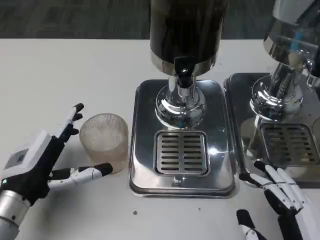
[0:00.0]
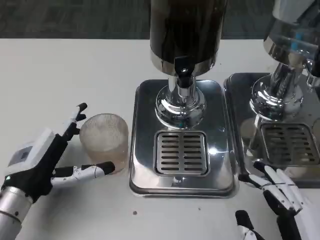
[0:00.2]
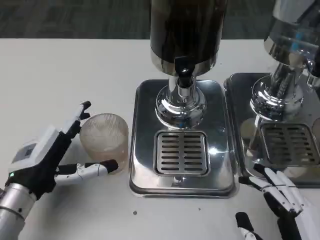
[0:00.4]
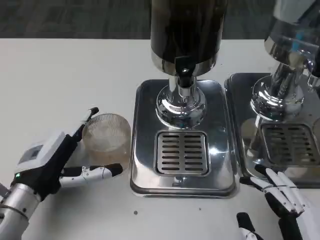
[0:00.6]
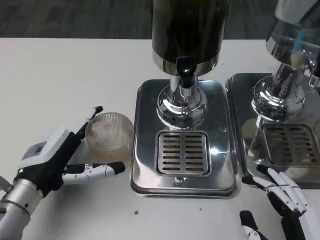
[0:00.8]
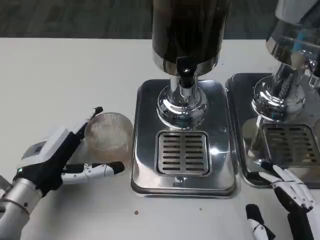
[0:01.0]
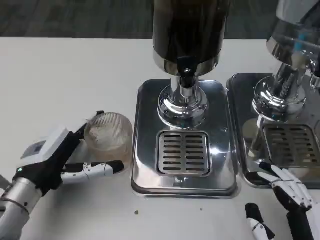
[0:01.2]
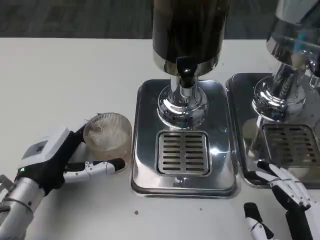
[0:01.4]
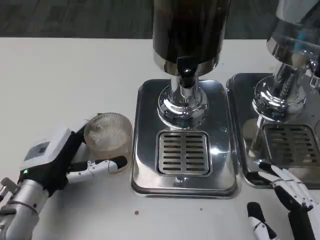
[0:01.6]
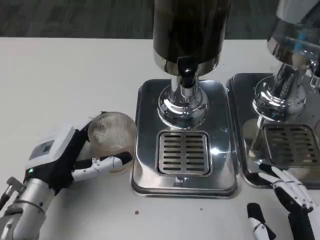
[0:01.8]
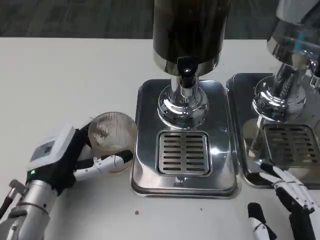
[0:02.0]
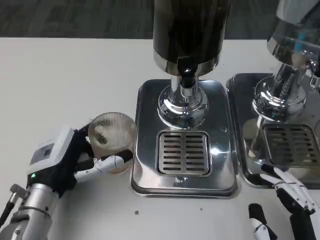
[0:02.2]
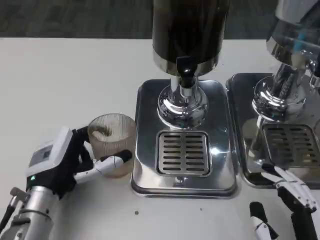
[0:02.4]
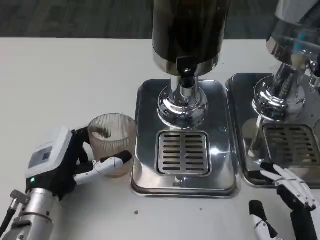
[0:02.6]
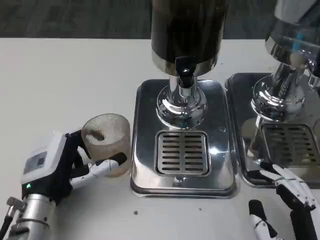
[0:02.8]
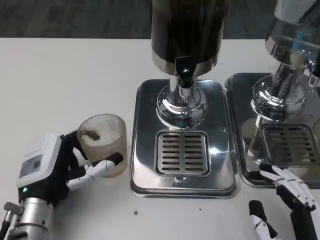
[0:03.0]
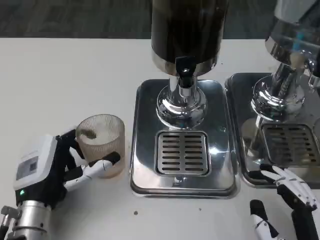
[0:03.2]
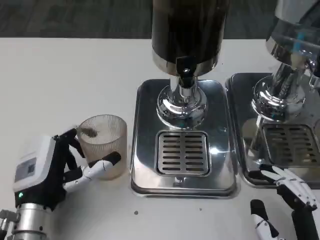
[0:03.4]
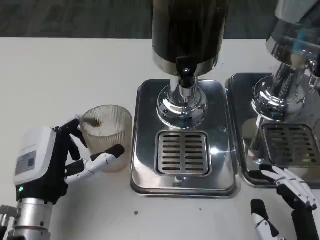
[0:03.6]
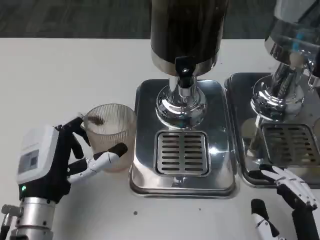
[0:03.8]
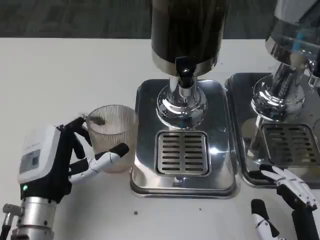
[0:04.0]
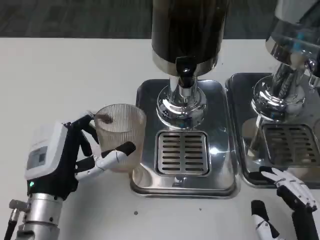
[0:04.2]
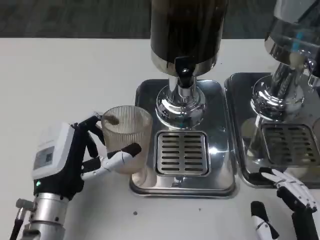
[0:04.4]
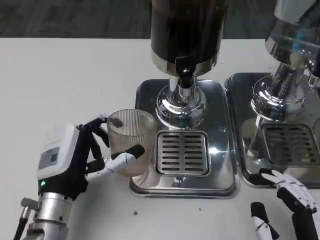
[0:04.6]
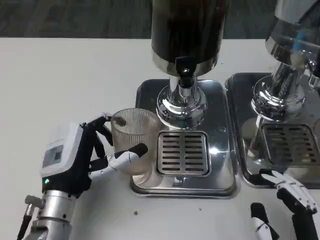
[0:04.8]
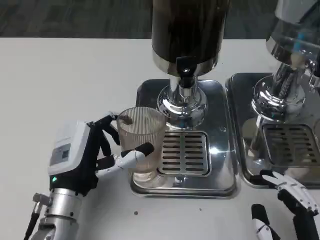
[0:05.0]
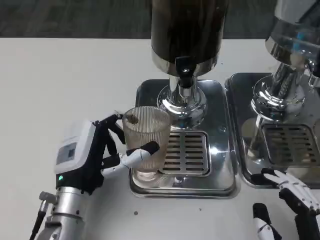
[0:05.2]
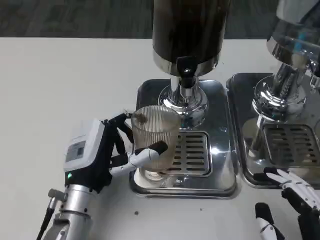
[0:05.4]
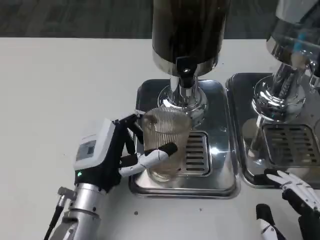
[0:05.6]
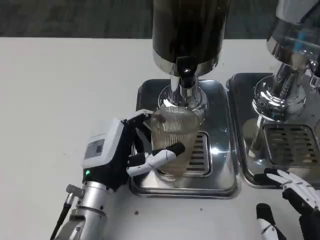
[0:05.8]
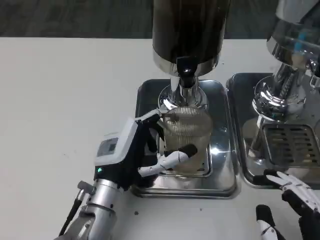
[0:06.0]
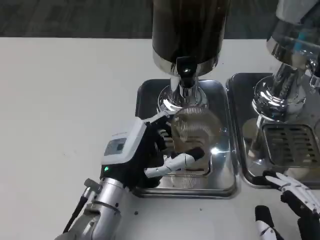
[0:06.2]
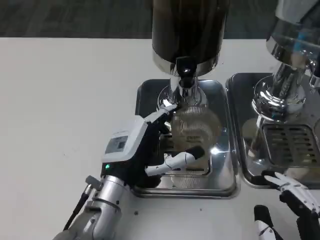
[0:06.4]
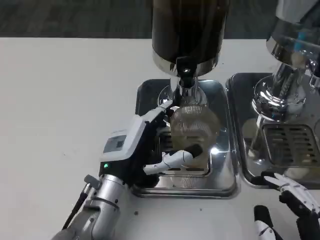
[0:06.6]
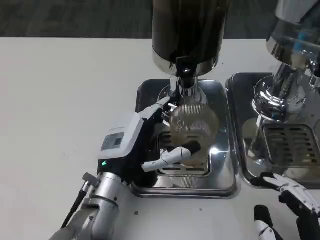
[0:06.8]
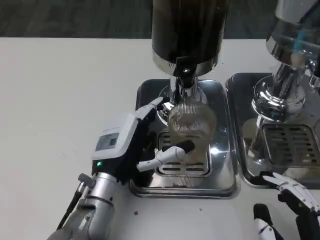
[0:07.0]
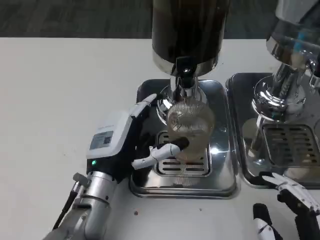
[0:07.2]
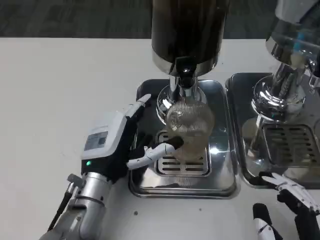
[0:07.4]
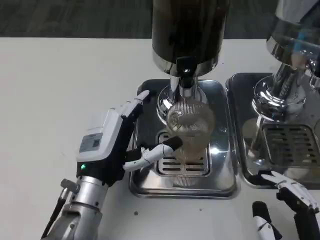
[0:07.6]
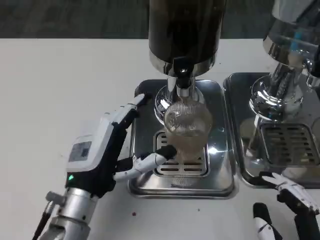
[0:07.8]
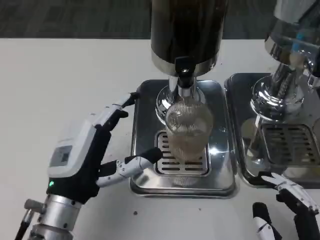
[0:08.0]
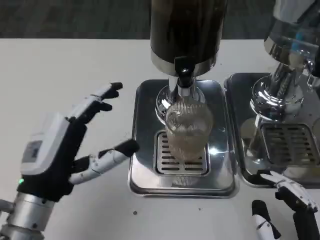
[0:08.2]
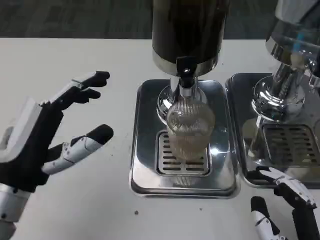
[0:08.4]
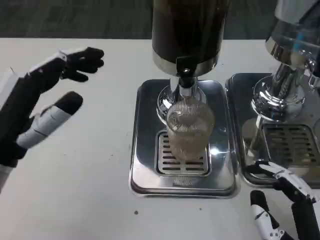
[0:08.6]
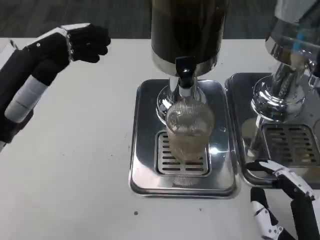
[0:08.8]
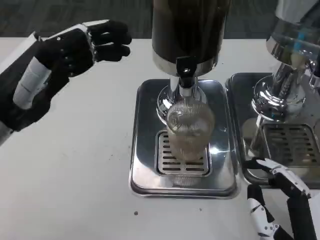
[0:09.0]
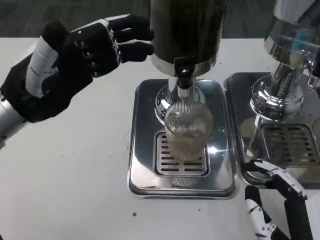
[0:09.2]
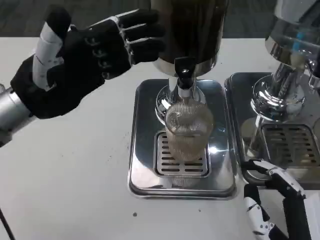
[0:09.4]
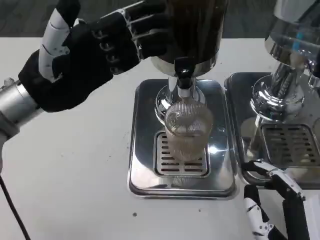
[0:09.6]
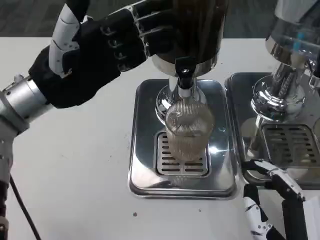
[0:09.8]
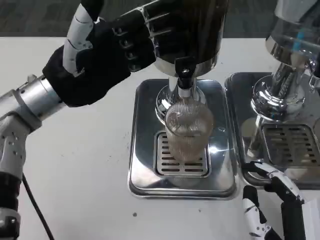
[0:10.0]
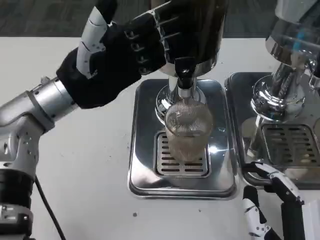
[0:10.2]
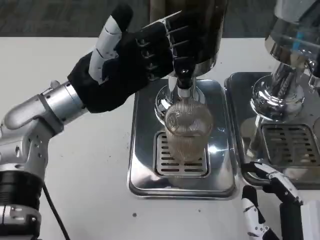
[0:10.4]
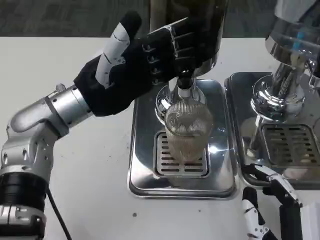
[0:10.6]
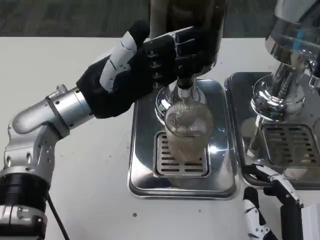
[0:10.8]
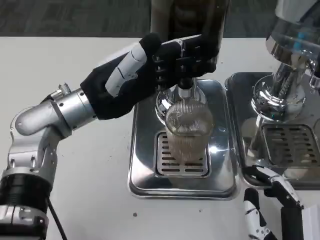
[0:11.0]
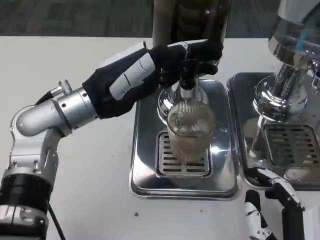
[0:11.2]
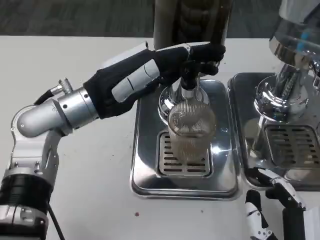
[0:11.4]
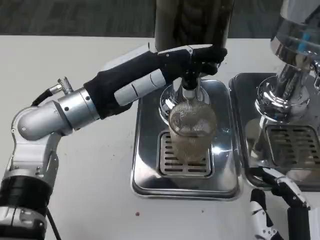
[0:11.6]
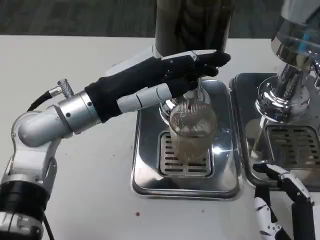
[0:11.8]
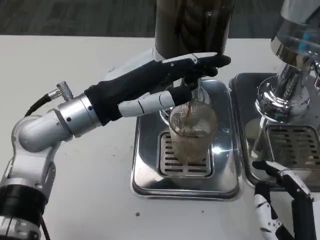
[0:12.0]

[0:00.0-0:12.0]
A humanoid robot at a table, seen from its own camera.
Task of the whole recording: Grasp the cup under the faucet to collect the drink, then remove the cup.
0:01.6 to 0:03.0: The hands make only small movements.
0:03.0 to 0:04.4: There are only small adjustments of the hands.
0:04.4 to 0:06.0: The left hand moves to the right, roughly 5 cm.
0:06.0 to 0:07.6: There are only small adjustments of the hands.
0:07.6 to 0:09.0: The left hand travels upward and to the left by approximately 20 cm.
0:09.0 to 0:10.4: The left hand shifts about 10 cm to the right and forward.

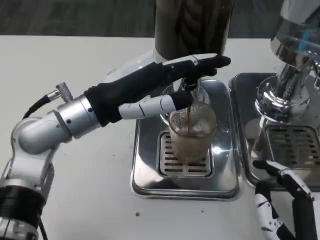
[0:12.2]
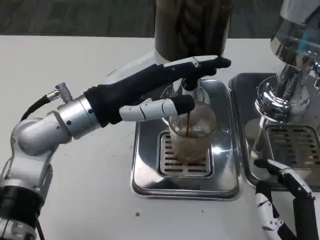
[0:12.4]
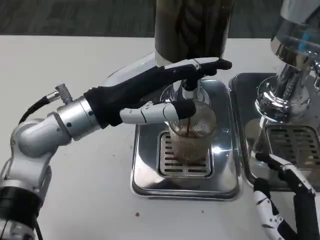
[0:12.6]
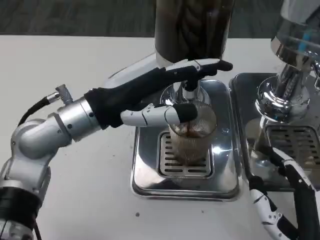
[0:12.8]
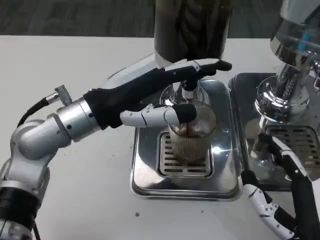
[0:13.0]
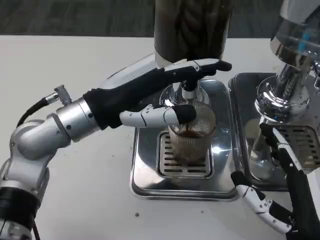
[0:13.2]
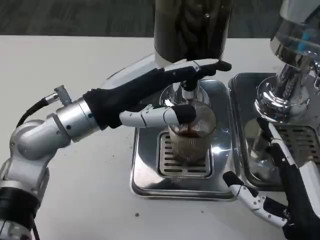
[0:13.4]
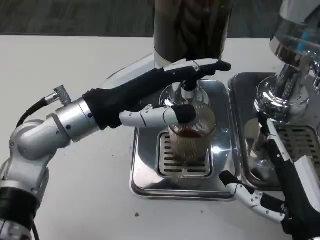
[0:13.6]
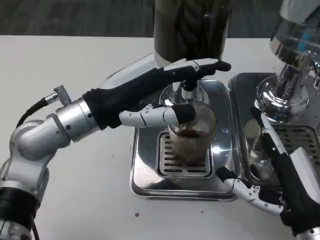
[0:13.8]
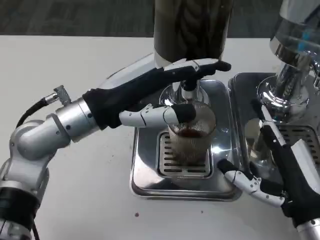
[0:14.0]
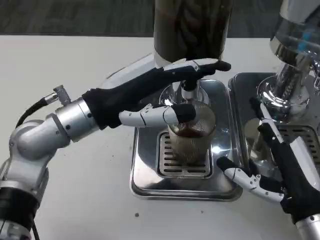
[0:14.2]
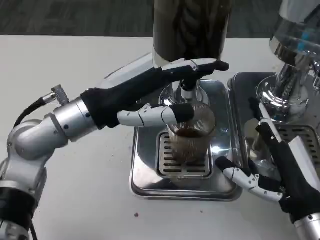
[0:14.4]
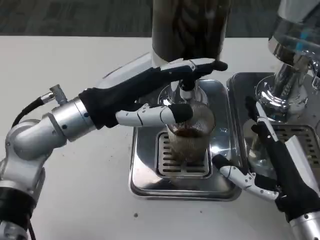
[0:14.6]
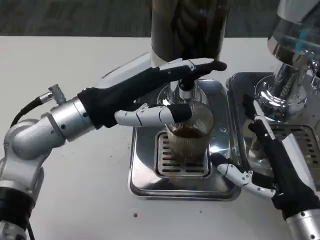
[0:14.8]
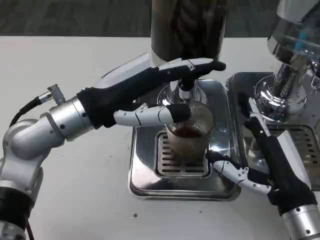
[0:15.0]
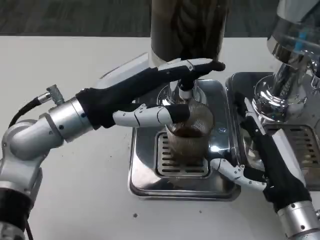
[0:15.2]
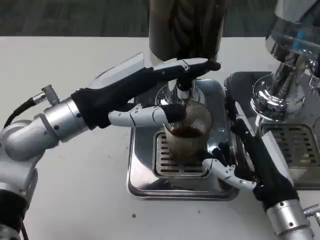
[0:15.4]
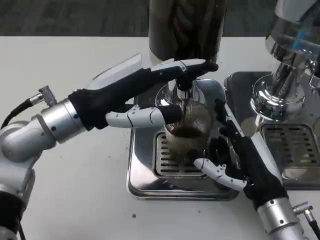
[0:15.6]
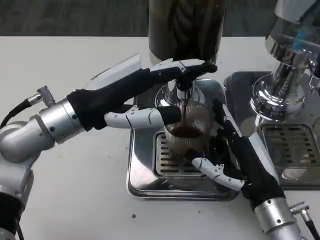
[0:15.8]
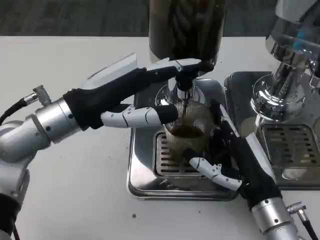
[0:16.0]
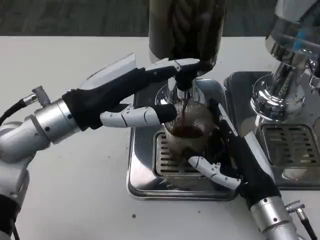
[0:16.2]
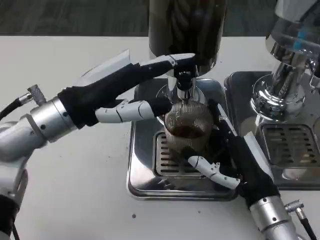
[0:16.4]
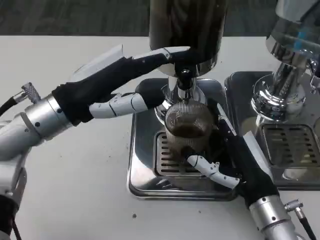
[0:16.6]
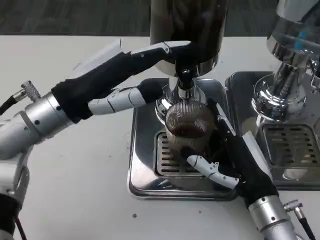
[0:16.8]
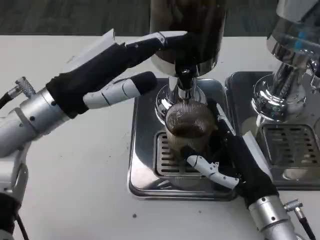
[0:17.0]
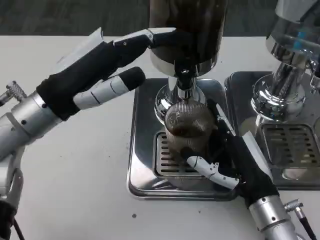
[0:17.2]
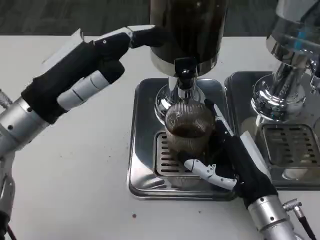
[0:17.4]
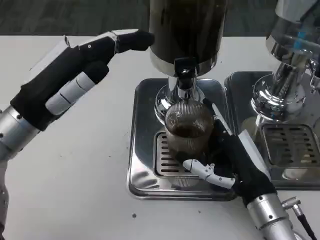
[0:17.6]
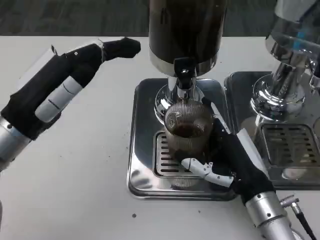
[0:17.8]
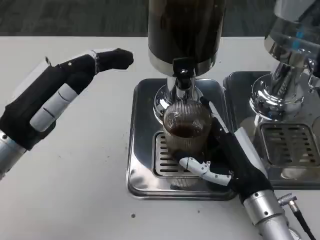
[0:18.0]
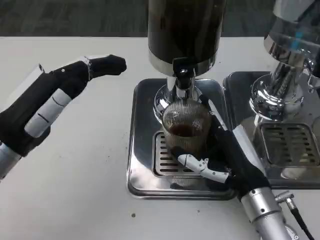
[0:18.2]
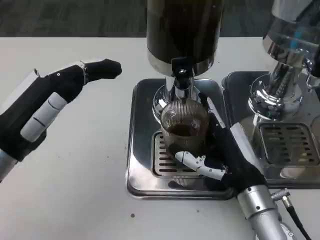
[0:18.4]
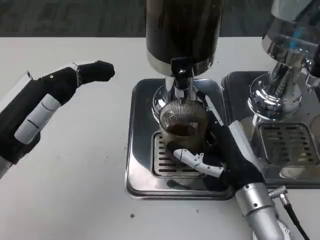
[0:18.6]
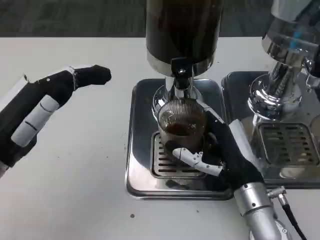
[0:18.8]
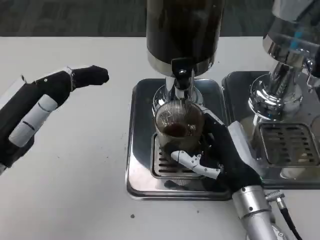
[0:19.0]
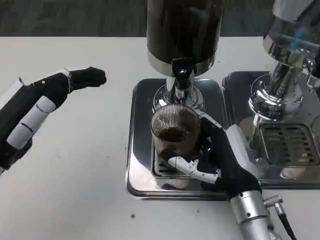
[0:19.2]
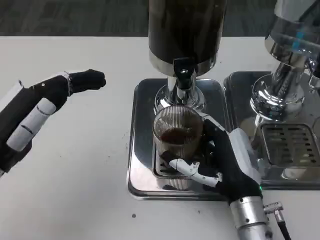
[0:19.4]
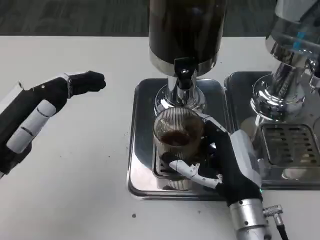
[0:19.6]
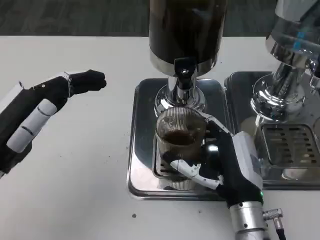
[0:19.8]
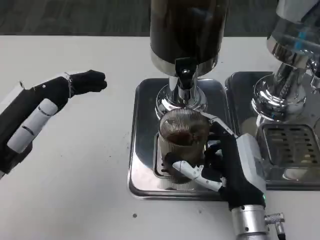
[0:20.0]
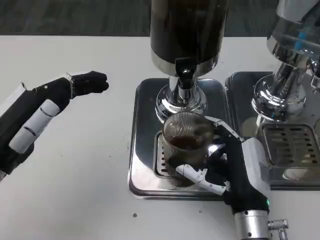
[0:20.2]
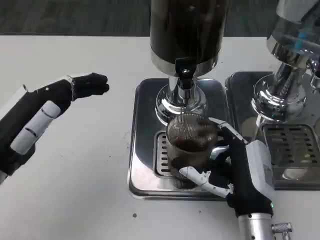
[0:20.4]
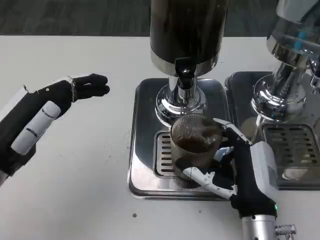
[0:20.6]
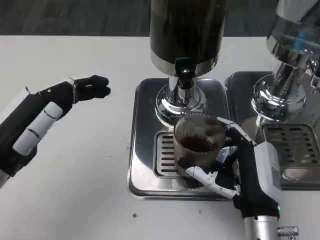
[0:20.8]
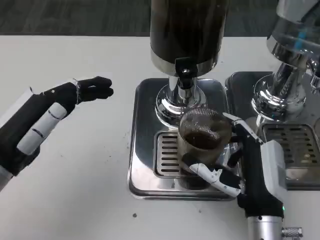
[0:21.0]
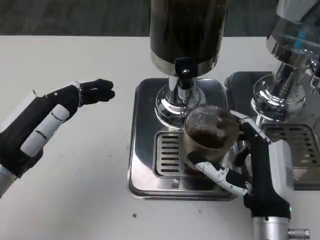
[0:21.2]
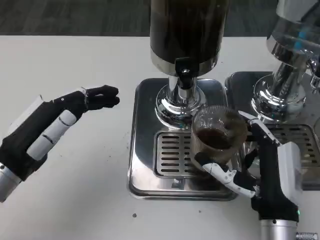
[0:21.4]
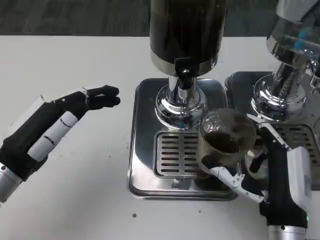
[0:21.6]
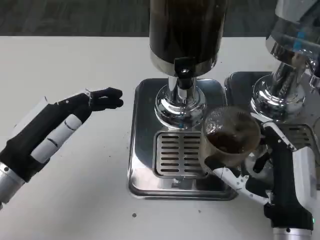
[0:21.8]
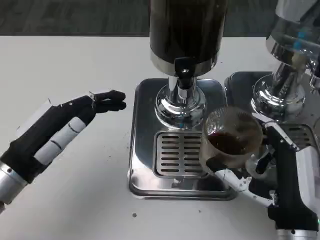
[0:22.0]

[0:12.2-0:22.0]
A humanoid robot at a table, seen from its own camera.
Task of the whole recording: Grasp the cup under the faucet to collect the drink, then remove the cup.
0:12.2 to 0:13.6: The right hand heads forward, covering some 5 cm.
0:16.4 to 0:17.8: The left hand changes place by about 5 cm.
0:17.8 to 0:19.2: The left hand moves about 5 cm.
0:20.6 to 0:22.0: The right hand changes place by roughly 5 cm.

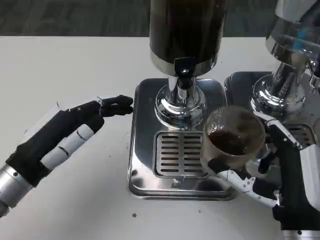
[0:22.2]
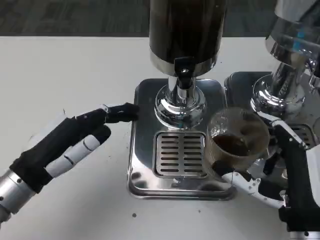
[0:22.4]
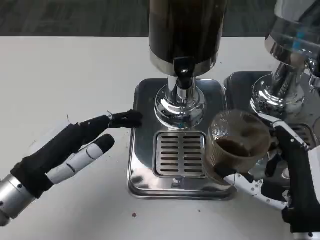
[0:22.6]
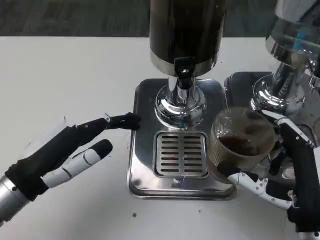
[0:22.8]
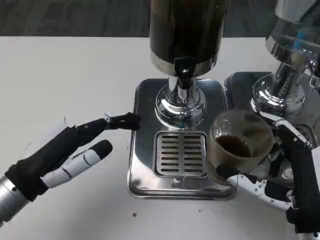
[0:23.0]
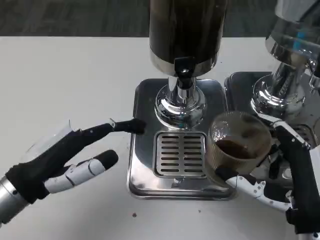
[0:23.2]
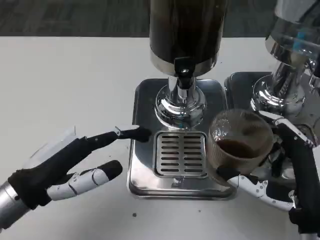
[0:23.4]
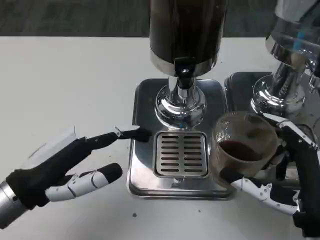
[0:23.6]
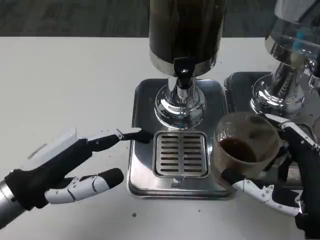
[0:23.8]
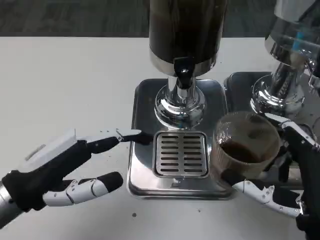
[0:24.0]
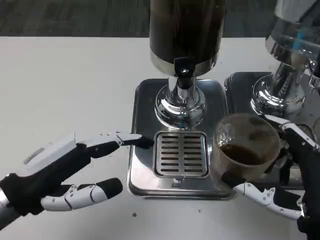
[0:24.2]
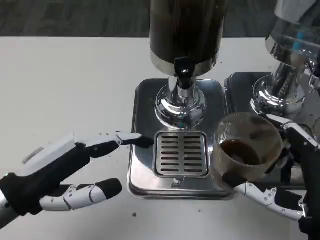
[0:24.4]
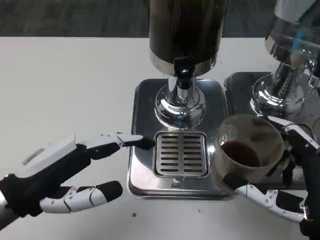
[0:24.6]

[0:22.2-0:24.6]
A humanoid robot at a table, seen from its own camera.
Task of the whole recording: Grasp the cup under the faucet to collect the drink, then remove the cup.
0:23.4 to 0:24.6: The hands stay close to where they were, moving slightly.
